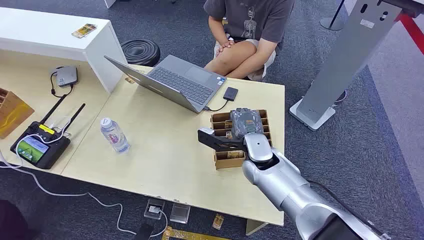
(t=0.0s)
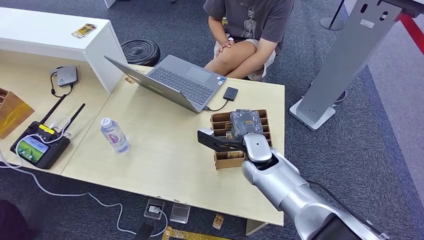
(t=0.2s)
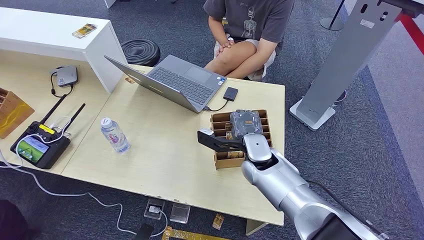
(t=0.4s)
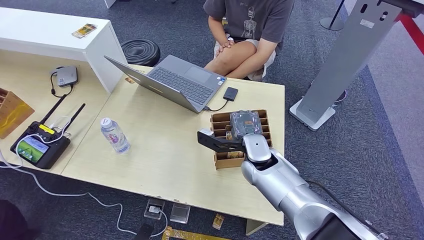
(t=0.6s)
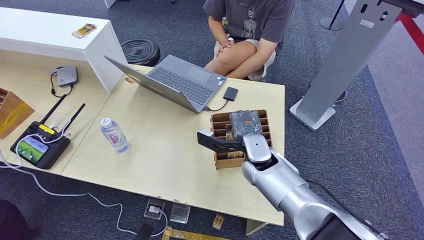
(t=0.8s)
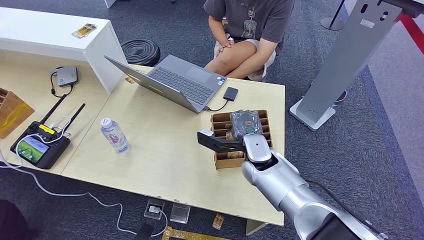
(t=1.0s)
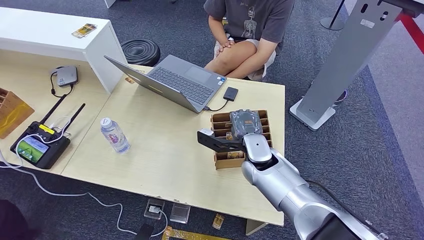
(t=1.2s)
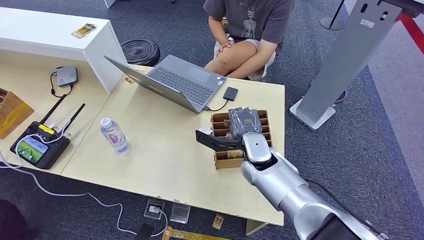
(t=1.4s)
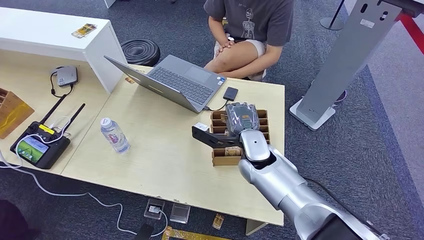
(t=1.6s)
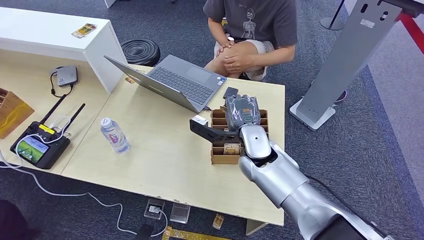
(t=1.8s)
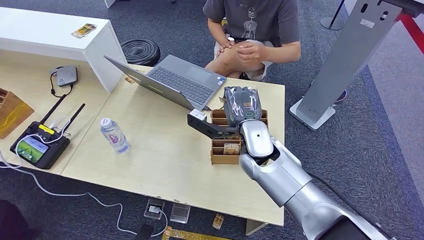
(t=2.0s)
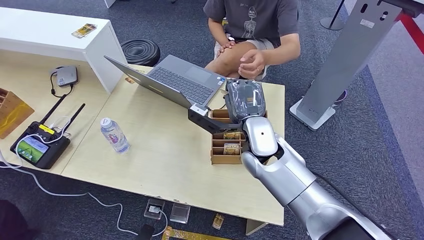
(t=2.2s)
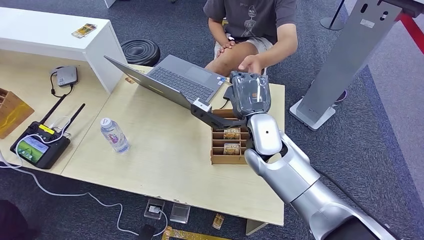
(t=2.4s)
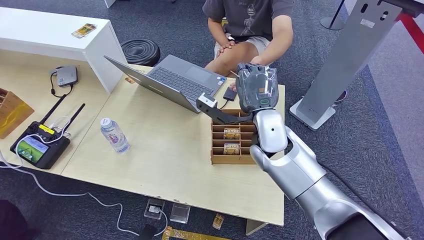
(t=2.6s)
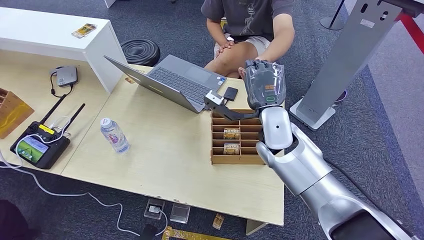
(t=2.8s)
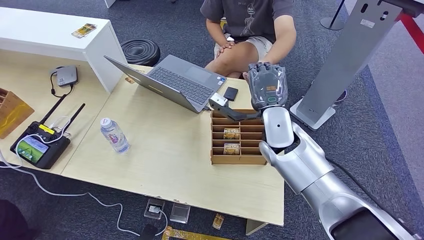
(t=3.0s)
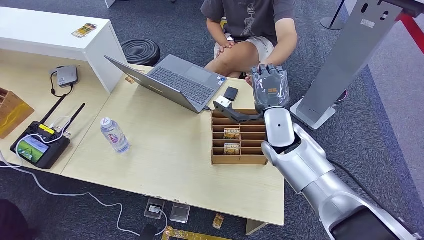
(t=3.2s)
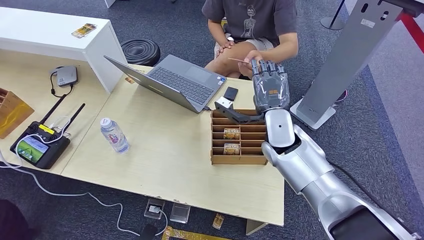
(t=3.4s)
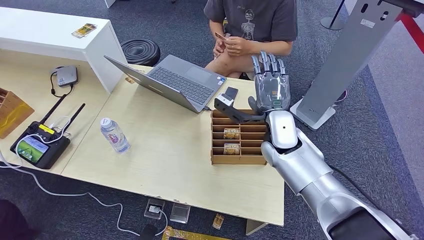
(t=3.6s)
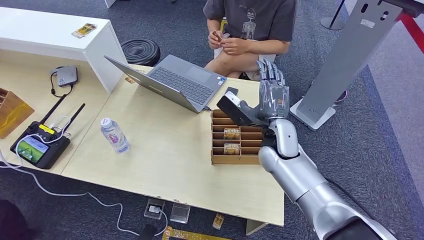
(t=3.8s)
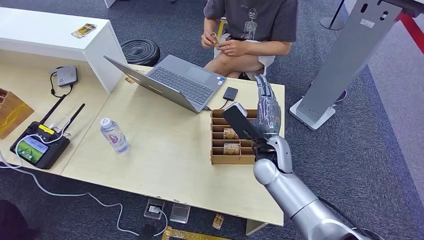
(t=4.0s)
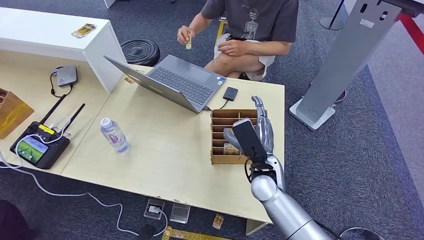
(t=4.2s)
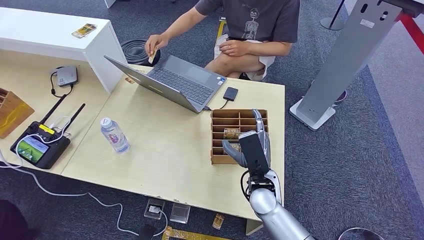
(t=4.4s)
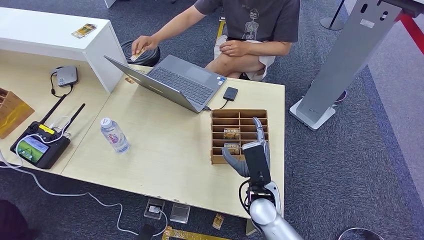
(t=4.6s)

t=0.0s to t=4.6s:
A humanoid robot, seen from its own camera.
Step, t=0.0s to t=1.8s: Pick up the key card from the card box.
Step, t=2.2s to t=4.6s: Hand the key card to the target.
t=1.6s to t=3.0s: The right hand is displaced upward by about 5 cm.
t=3.0s to t=4.6s: The right hand travels downward and backward by approximately 20 cm.
